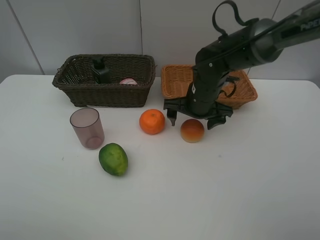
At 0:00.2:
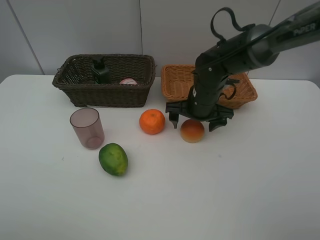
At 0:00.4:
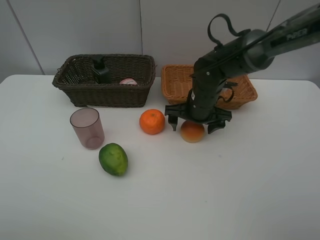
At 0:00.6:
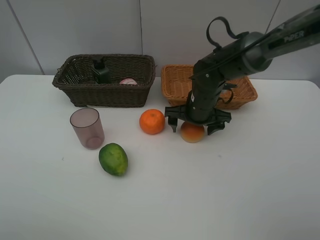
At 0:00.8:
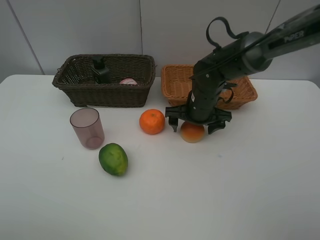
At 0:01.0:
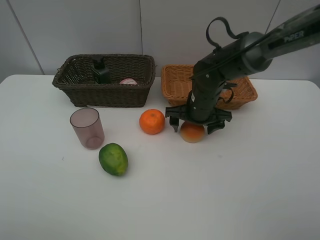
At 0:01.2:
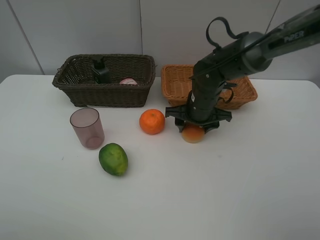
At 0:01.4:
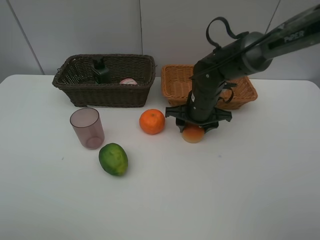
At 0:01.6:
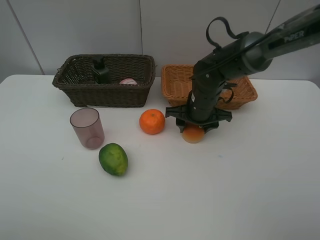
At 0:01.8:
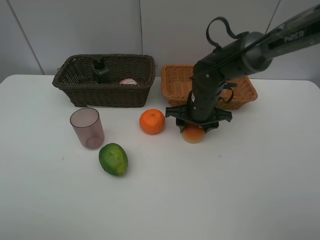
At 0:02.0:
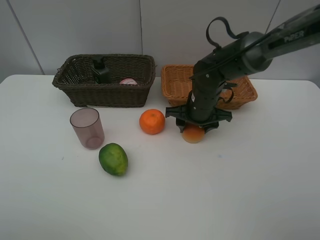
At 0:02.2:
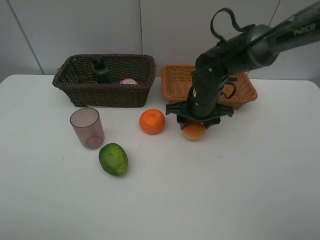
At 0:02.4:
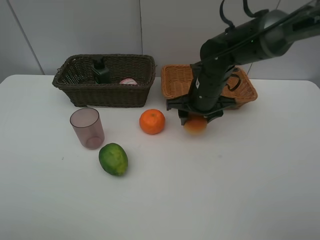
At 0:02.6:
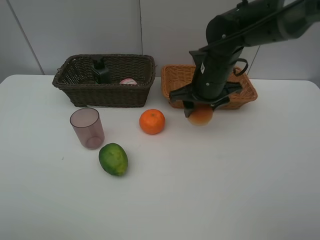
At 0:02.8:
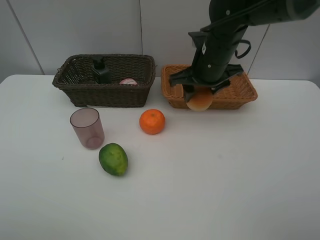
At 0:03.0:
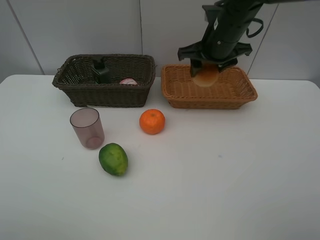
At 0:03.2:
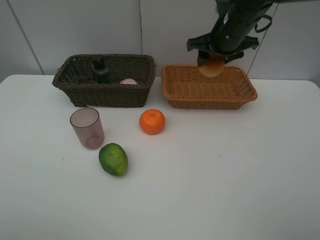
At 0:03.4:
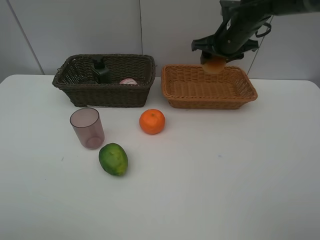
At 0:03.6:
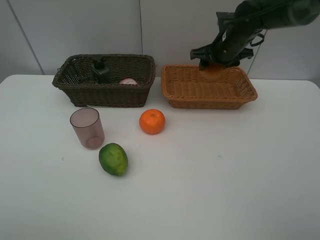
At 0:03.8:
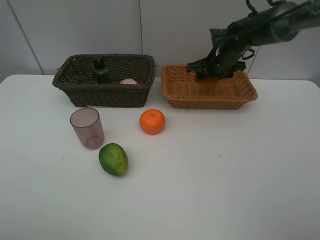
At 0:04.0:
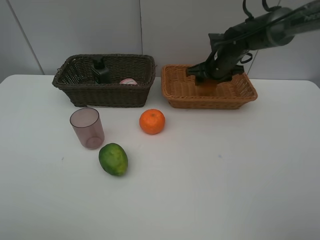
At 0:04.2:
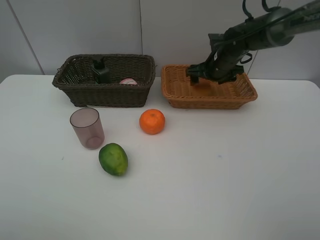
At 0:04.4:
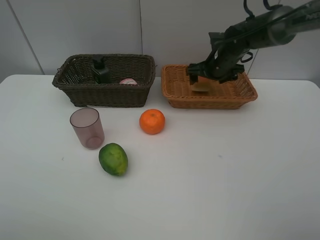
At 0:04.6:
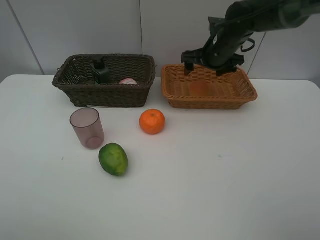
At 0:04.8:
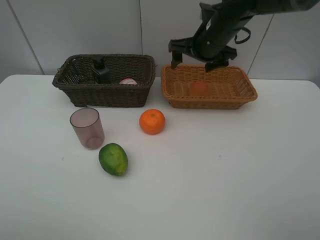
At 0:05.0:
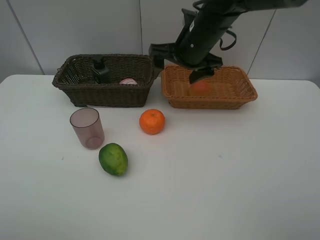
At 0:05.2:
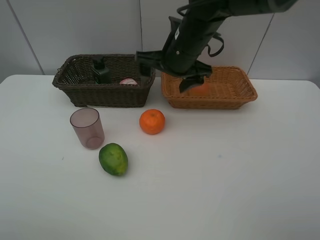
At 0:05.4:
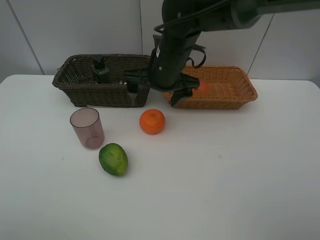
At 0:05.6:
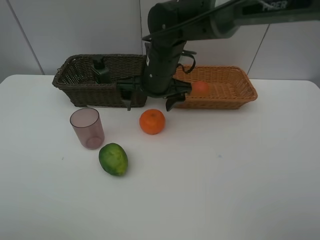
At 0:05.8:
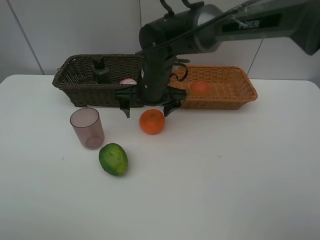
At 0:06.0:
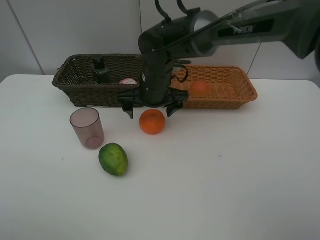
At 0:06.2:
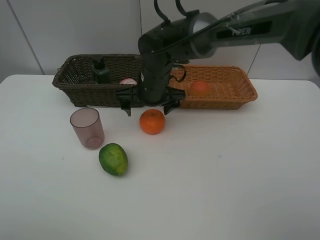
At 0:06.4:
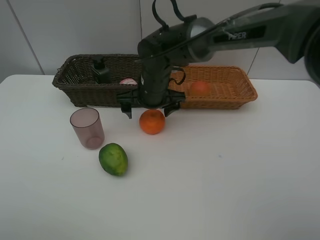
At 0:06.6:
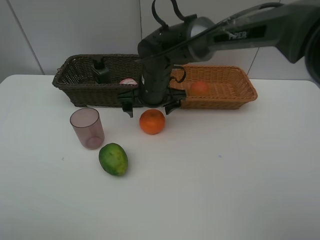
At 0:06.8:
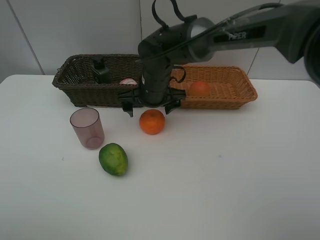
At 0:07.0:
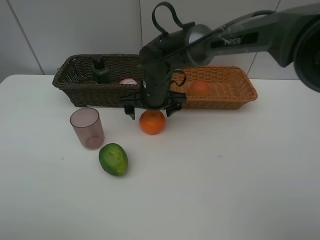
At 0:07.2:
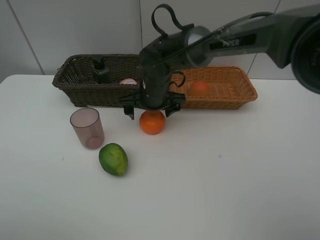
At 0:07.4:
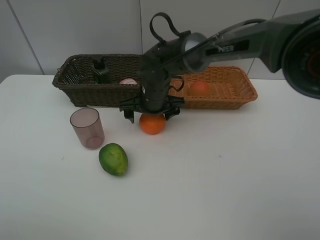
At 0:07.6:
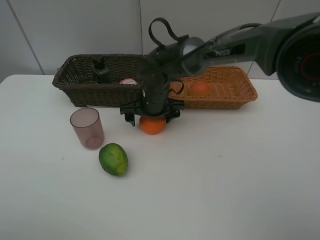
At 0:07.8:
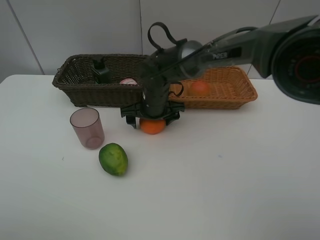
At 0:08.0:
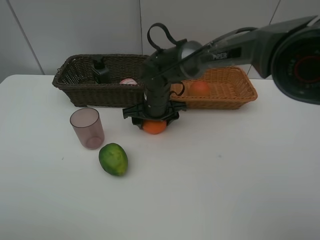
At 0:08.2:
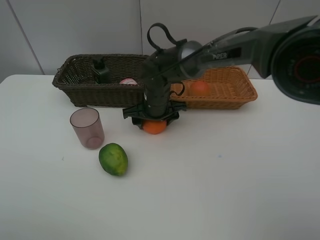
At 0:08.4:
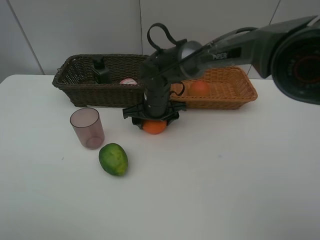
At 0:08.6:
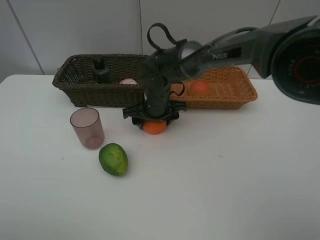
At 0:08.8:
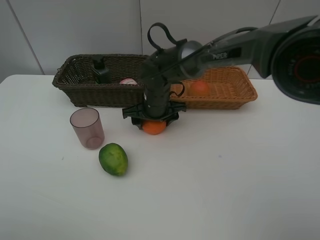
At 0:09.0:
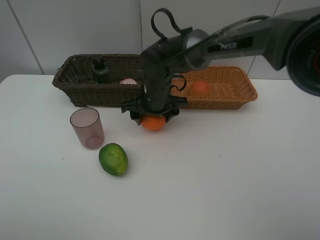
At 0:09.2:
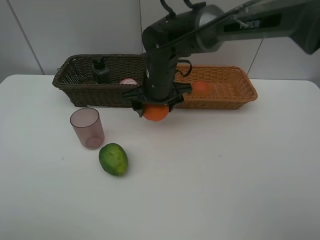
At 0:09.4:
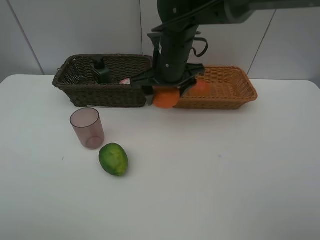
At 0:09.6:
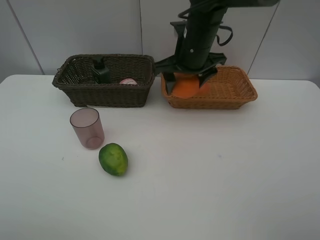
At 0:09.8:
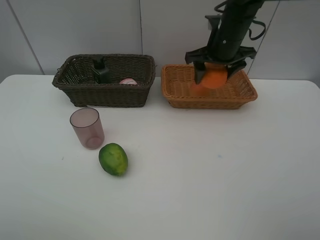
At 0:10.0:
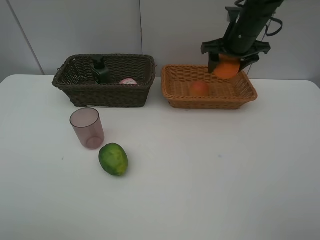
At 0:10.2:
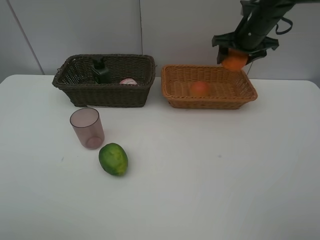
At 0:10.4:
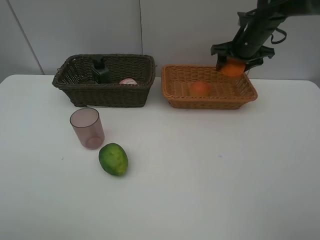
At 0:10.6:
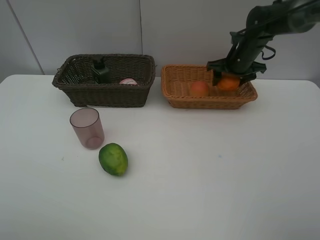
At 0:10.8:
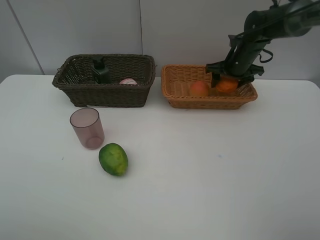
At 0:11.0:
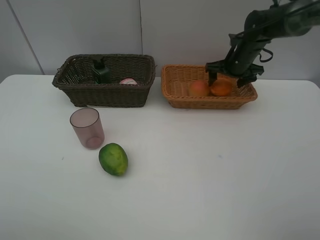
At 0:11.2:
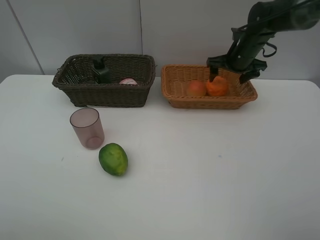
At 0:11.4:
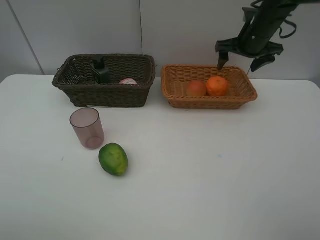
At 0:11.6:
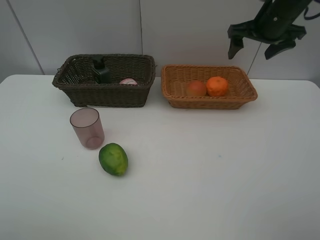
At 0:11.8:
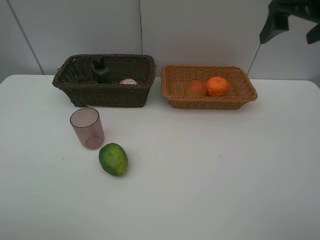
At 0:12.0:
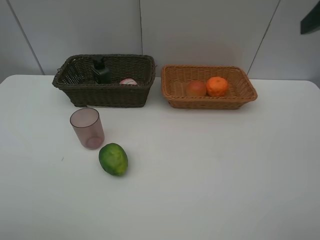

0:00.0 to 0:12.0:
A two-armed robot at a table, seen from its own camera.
Task of the whole recording: place multiple objects separately in different baskets.
0:00.0 to 0:01.6: The right gripper closes.
0:01.6 to 0:03.0: The right gripper heads upward, covering some 15 cm.
0:03.0 to 0:04.4: The right gripper goes about 10 cm downward and forward, and opens.
0:04.4 to 0:06.0: The right gripper is displaced to the left and backward by roughly 20 cm.
0:06.0 to 0:09.0: The grippers move only a little.
0:09.0 to 0:10.4: The right gripper is displaced to the right and forward by approximately 25 cm.
0:10.4 to 0:12.0: The right gripper shifts some 30 cm backward and upward.

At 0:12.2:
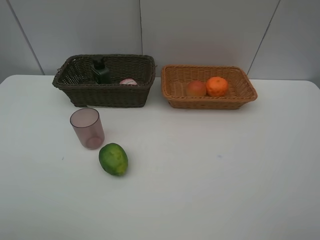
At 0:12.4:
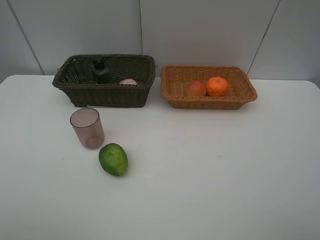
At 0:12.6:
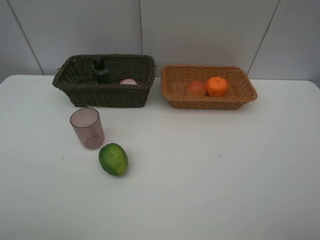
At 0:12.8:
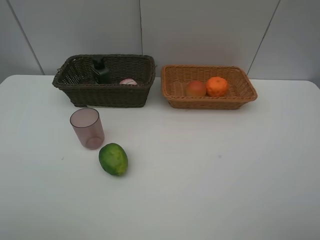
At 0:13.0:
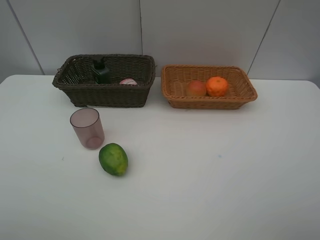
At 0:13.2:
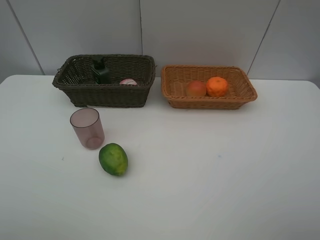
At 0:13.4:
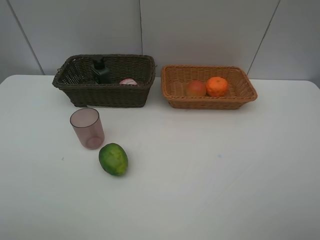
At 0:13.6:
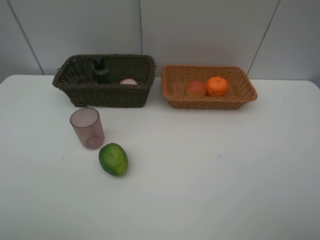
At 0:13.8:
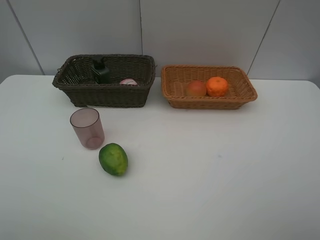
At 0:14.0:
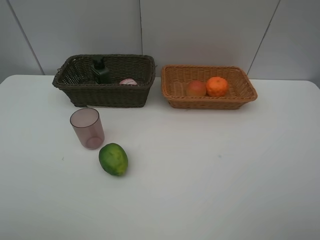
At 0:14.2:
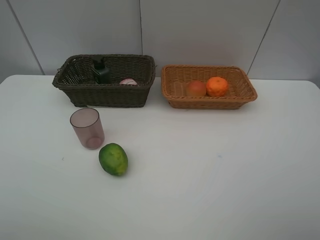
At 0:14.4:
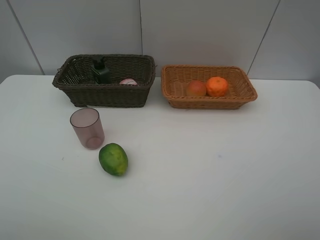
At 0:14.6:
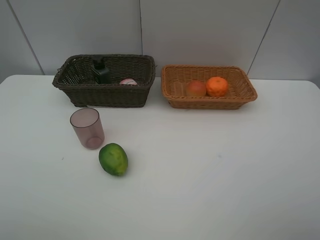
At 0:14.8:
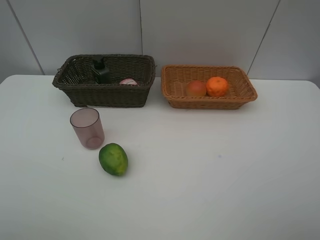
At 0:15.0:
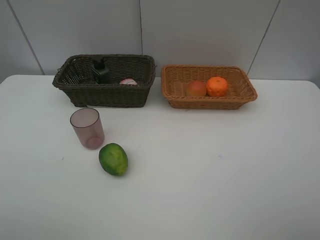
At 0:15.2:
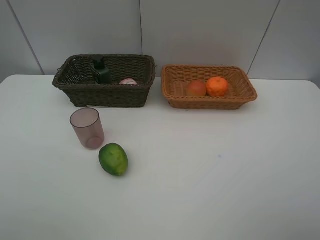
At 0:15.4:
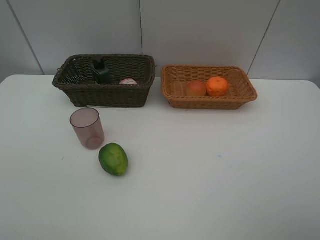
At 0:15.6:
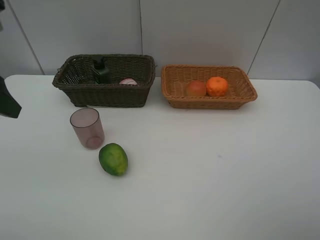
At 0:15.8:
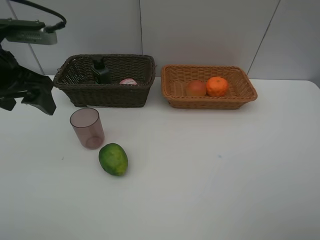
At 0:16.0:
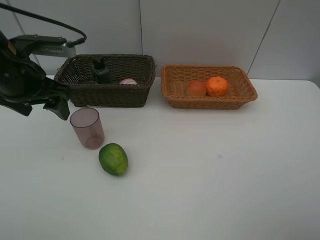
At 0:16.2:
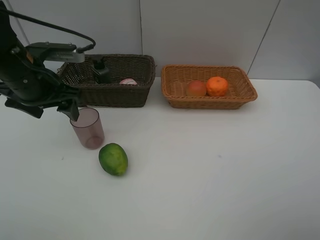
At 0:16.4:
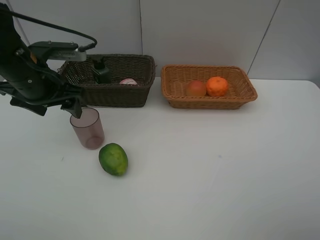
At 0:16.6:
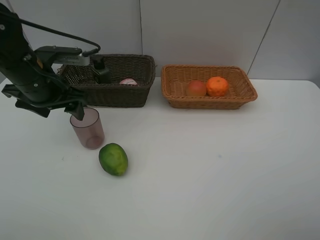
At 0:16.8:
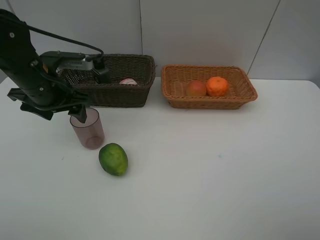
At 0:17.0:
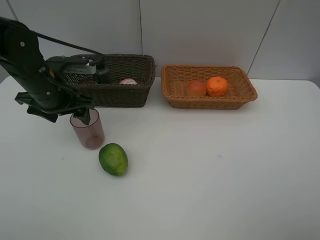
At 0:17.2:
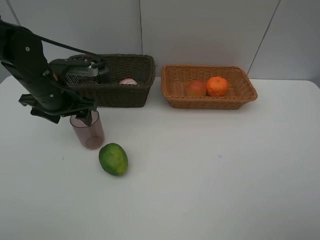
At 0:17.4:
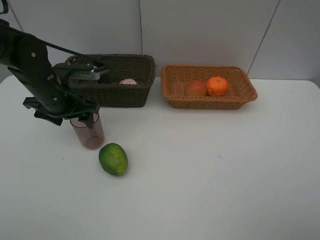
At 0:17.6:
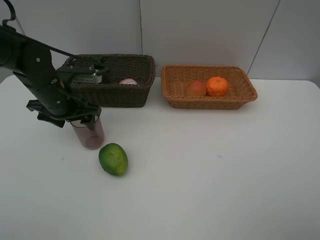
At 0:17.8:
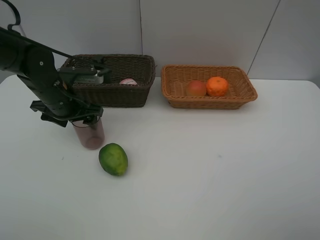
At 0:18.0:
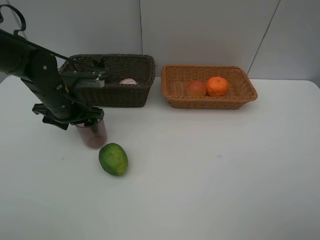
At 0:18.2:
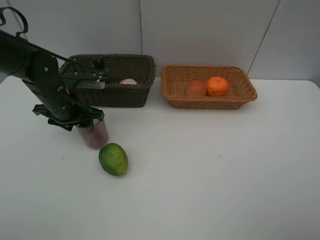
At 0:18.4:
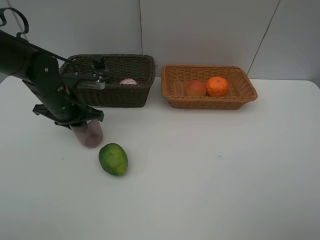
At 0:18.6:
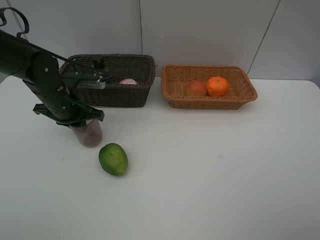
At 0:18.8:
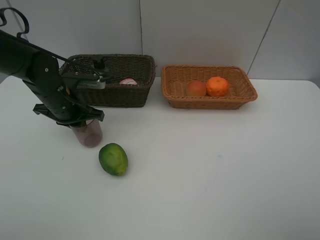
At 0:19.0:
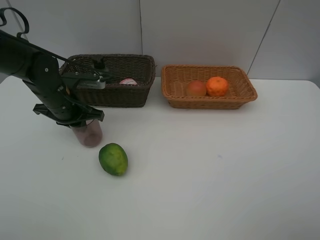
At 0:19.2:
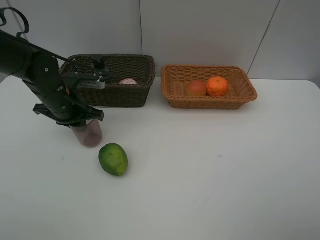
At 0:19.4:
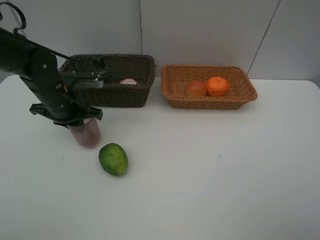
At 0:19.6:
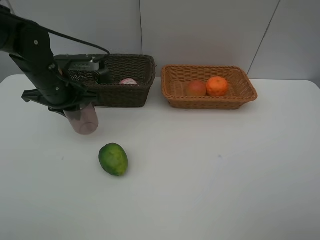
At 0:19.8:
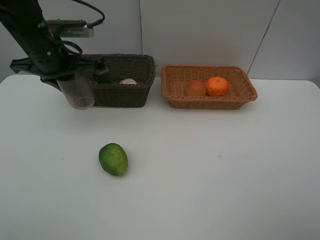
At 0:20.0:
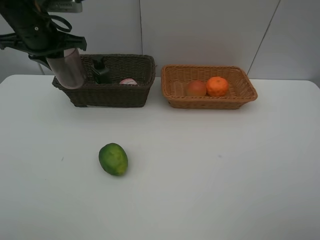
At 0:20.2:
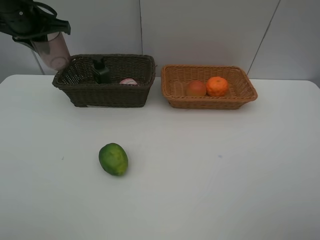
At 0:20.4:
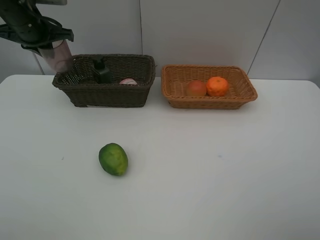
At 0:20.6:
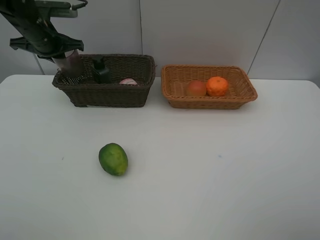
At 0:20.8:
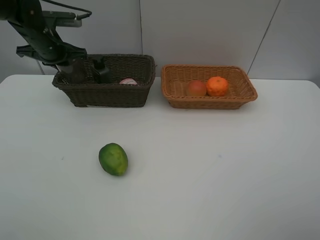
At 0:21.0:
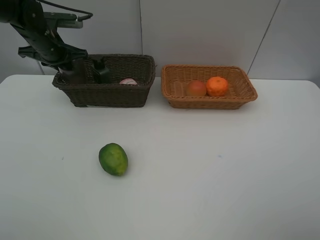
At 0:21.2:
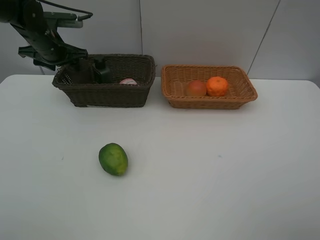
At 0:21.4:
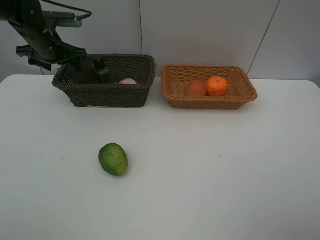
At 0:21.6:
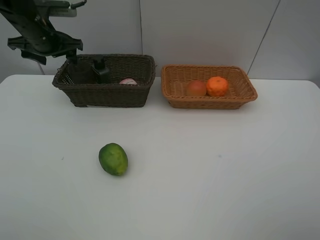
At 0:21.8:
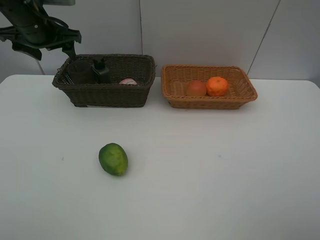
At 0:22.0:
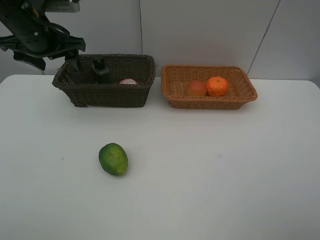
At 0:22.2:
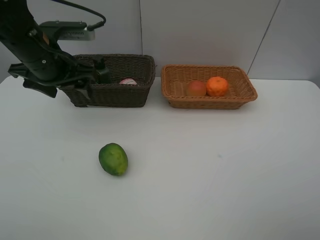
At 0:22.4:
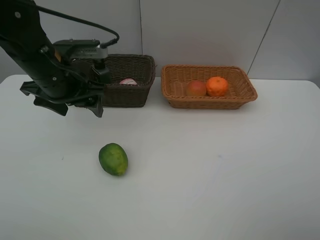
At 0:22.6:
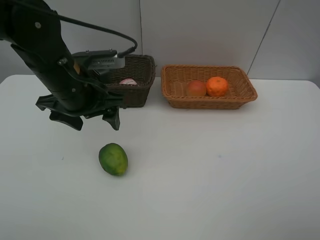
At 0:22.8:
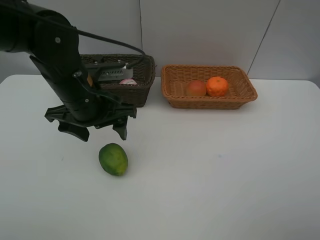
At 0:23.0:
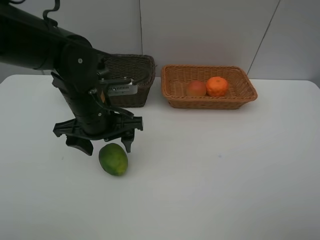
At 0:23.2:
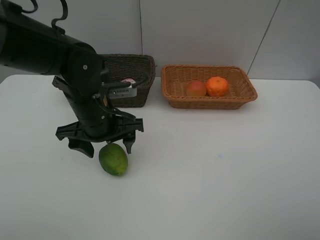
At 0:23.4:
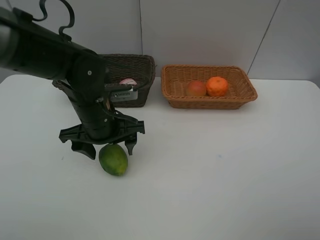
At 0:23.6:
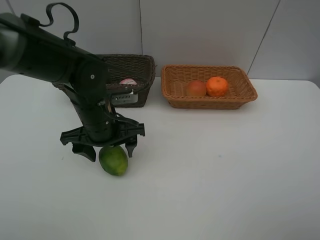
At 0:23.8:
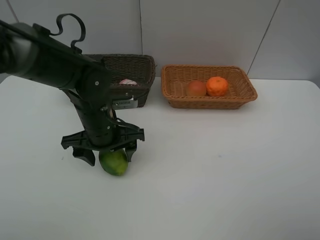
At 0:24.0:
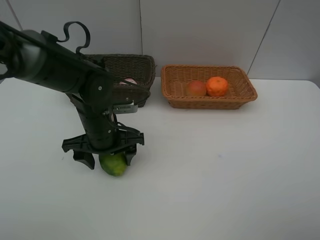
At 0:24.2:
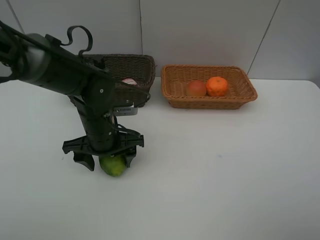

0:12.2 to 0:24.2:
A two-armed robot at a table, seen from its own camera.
Task of the whole recording: place multiple objects separately in different baskets.
0:15.2 to 0:16.6: The left gripper goes about 25 cm forward and downward.
0:16.6 to 0:18.2: The left gripper shifts roughly 10 cm downward, and closes up.
0:18.2 to 0:19.8: The left gripper is displaced upward by some 10 cm, and closes.
0:19.8 to 0:21.2: The left gripper travels forward and to the left by roughly 10 cm, and opens.
0:21.2 to 0:22.6: The left gripper shifts roughly 25 cm backward and to the right.
0:22.6 to 0:24.2: The left gripper is displaced downward by roughly 10 cm.
